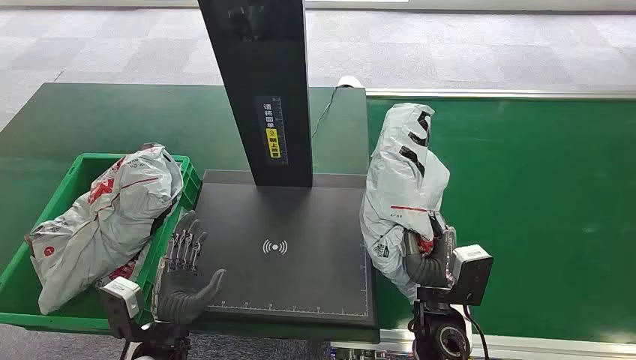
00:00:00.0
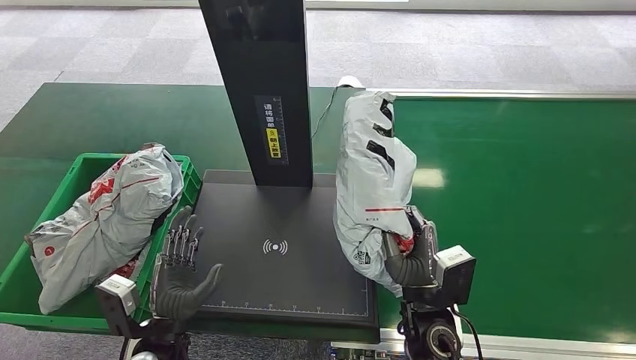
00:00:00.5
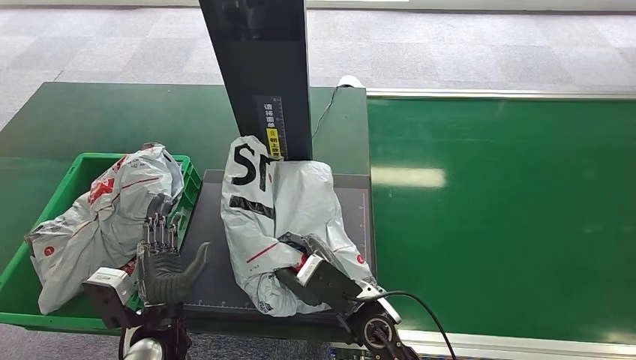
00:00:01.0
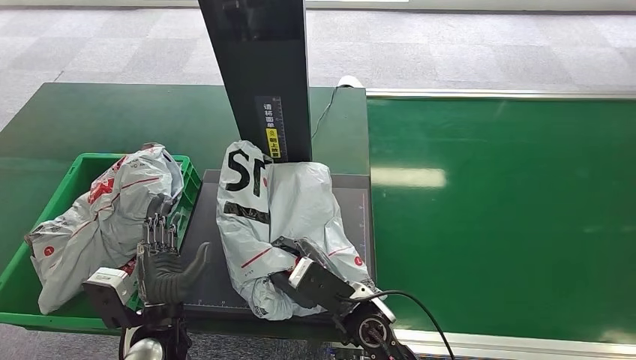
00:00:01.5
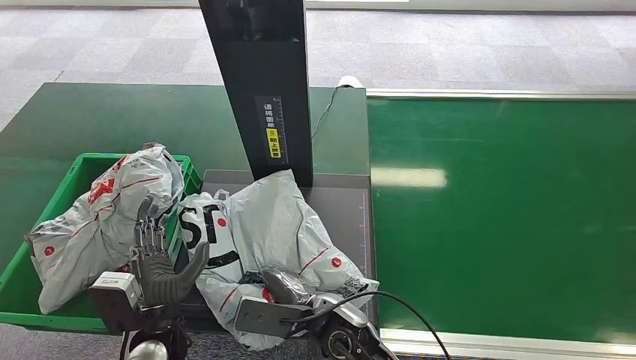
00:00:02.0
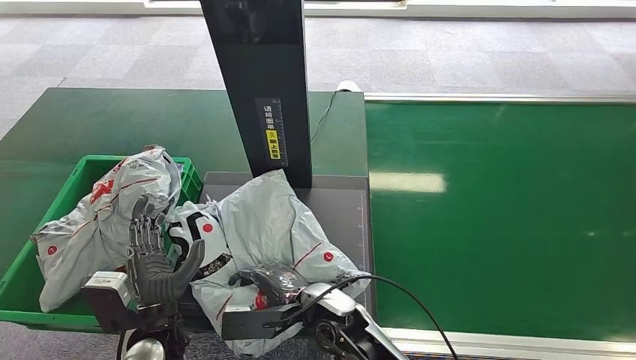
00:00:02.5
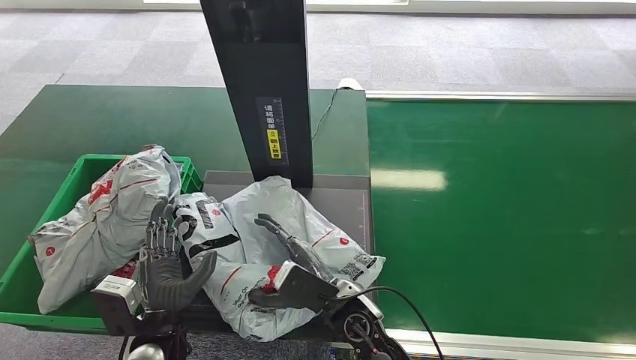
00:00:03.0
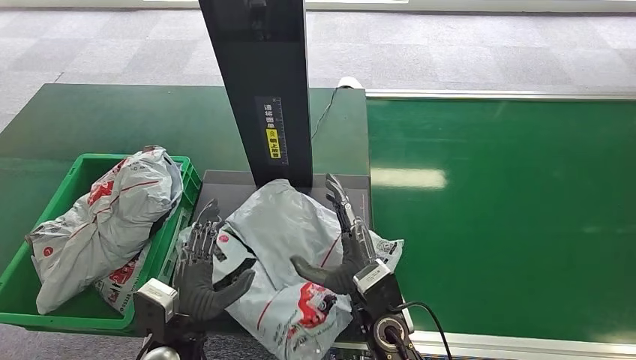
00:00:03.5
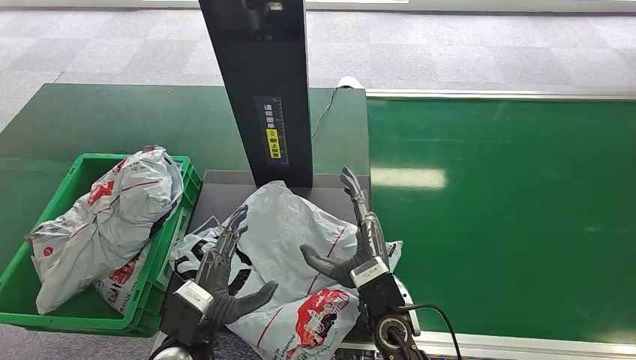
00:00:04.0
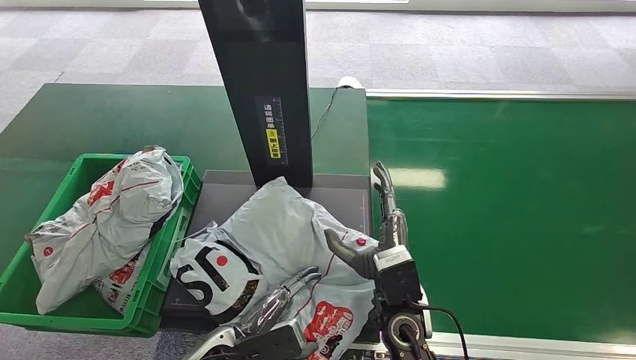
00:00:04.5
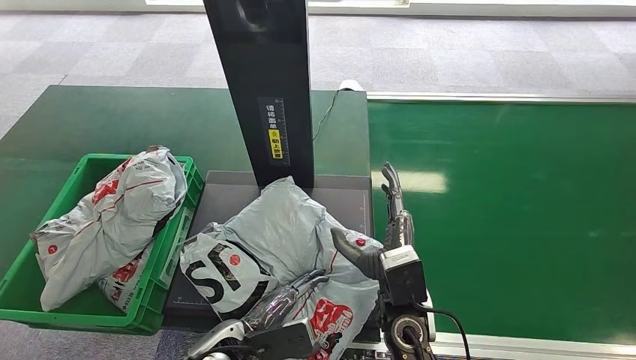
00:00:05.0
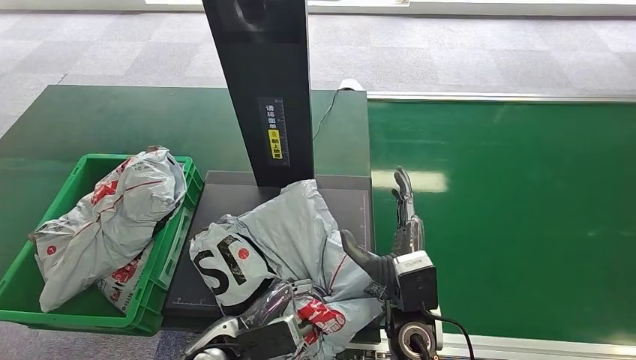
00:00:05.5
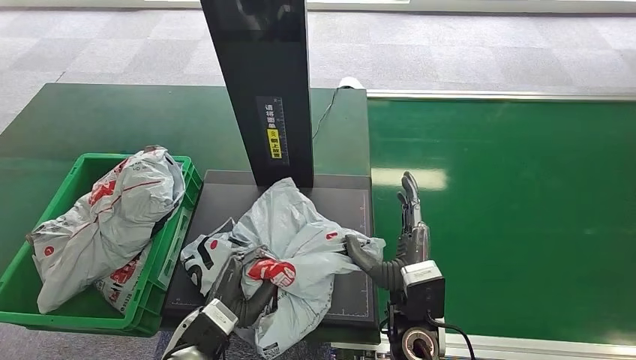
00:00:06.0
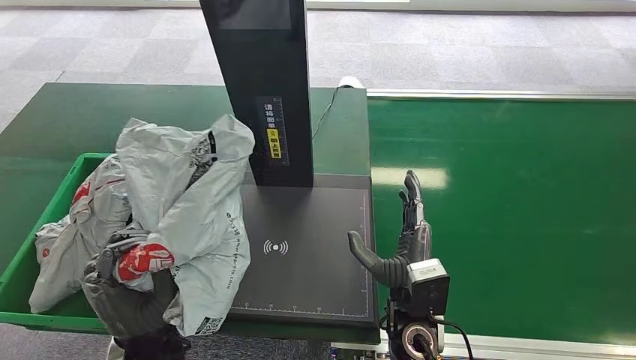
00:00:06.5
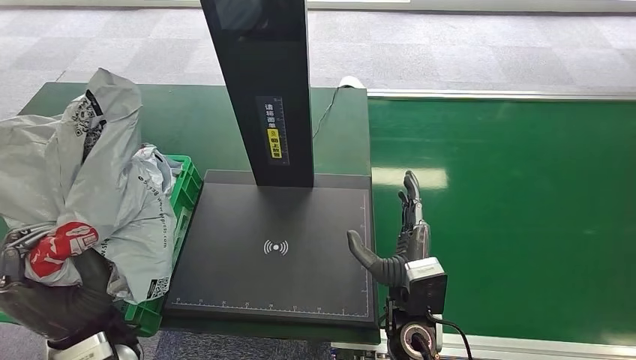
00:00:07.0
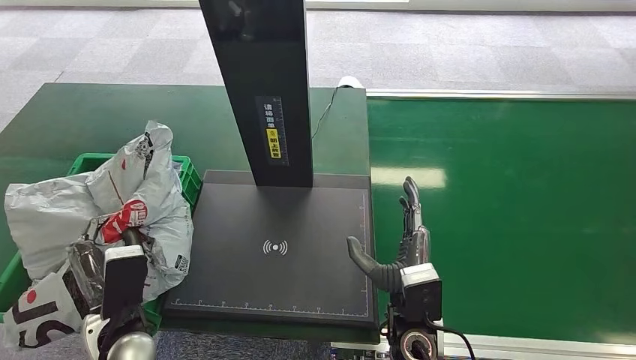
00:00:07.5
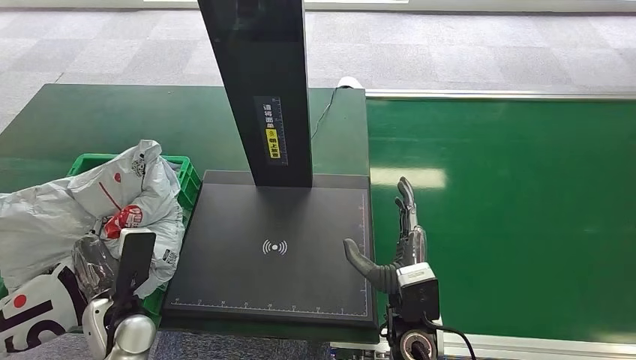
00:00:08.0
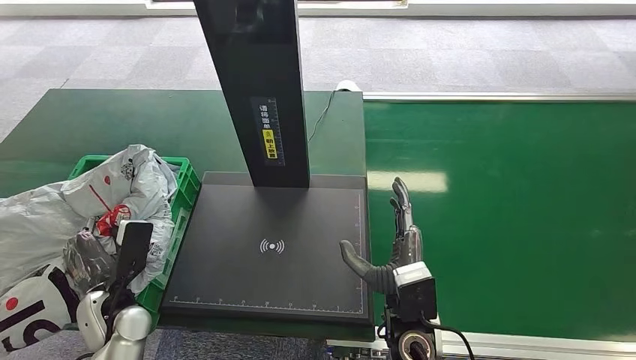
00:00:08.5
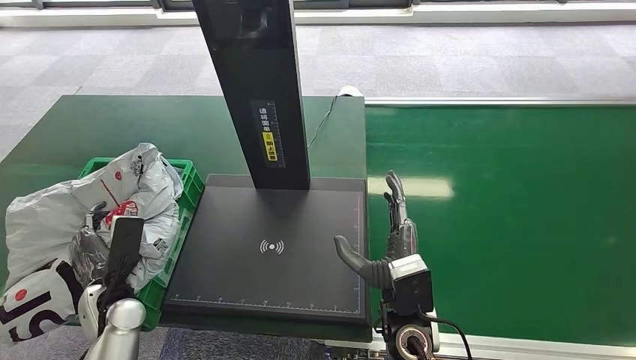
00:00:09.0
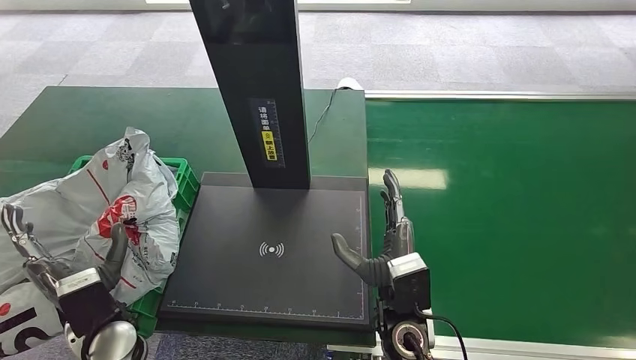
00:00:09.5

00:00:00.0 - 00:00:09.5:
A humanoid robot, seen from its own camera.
00:00:02.0 - 00:00:04.0: The right hand travels to the right by about 5 cm.

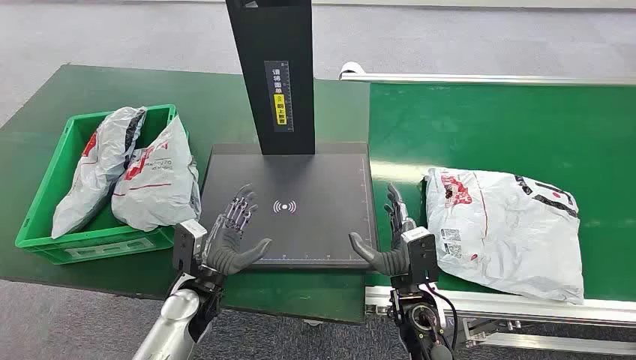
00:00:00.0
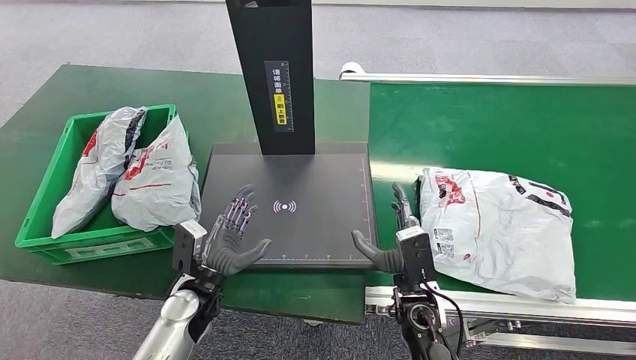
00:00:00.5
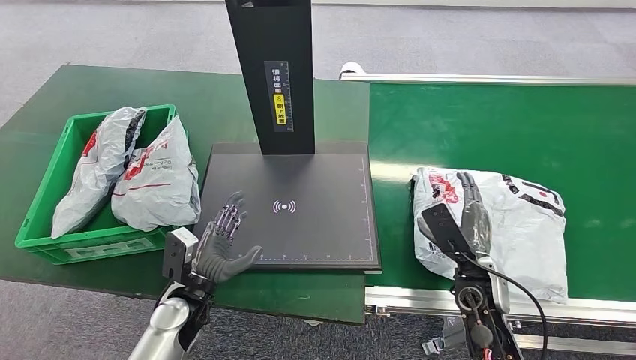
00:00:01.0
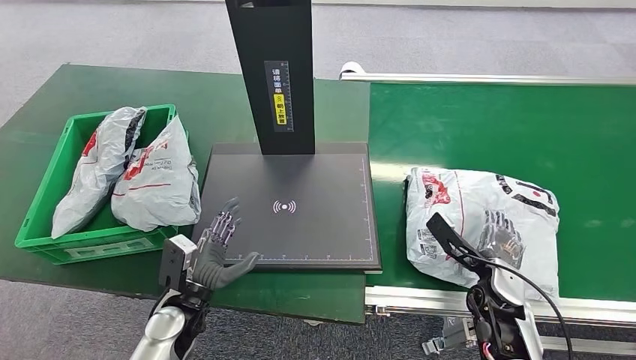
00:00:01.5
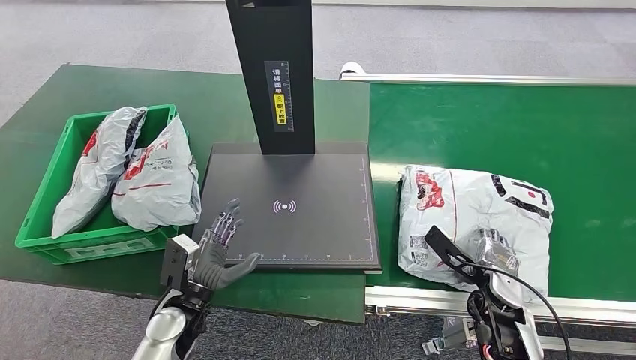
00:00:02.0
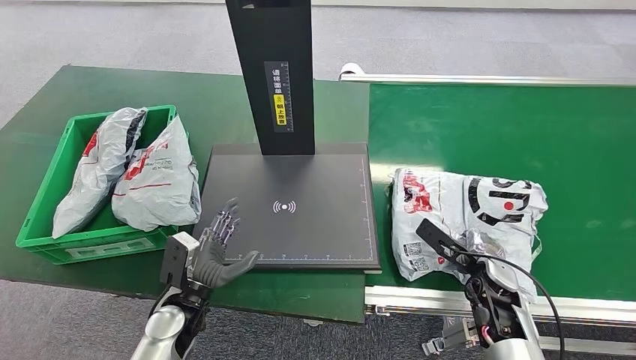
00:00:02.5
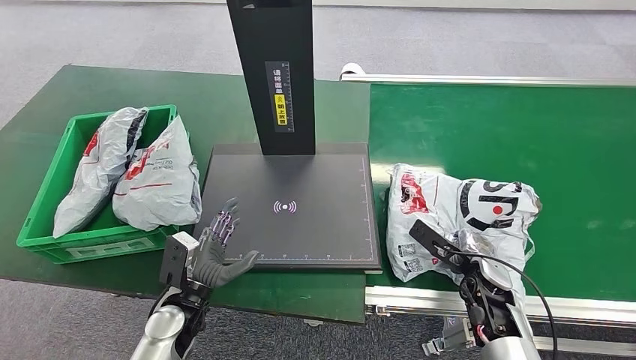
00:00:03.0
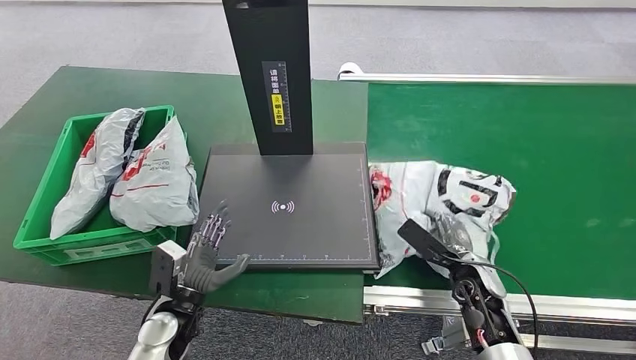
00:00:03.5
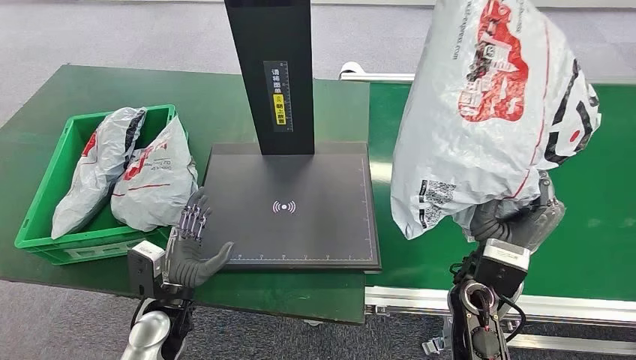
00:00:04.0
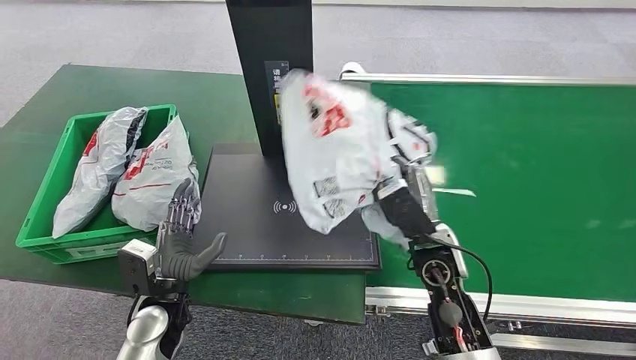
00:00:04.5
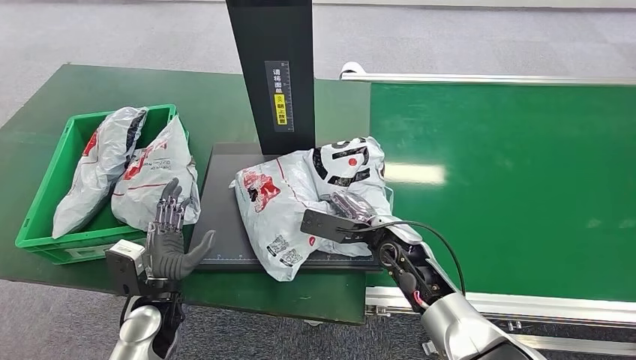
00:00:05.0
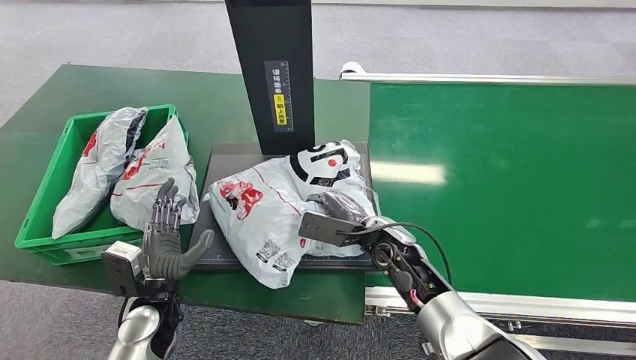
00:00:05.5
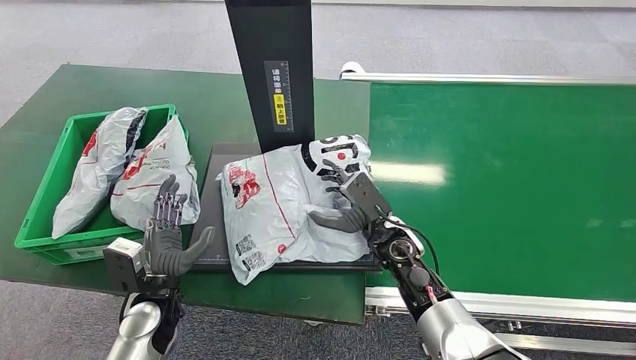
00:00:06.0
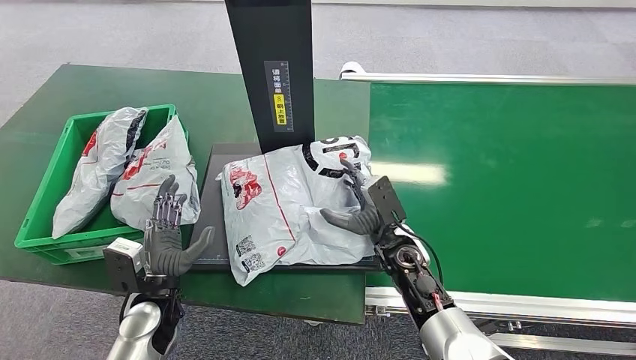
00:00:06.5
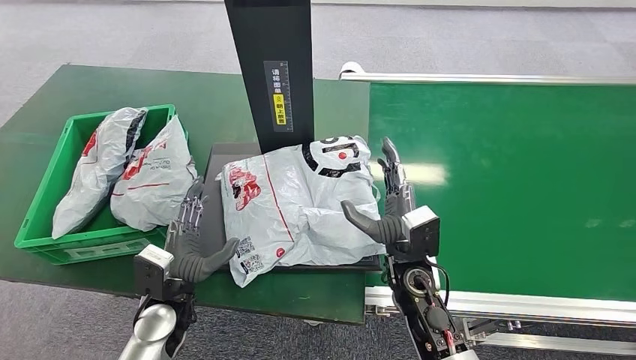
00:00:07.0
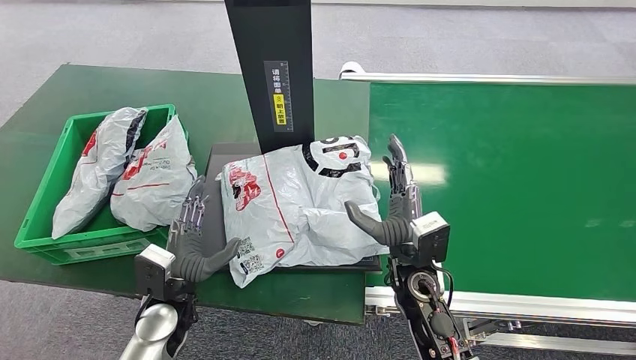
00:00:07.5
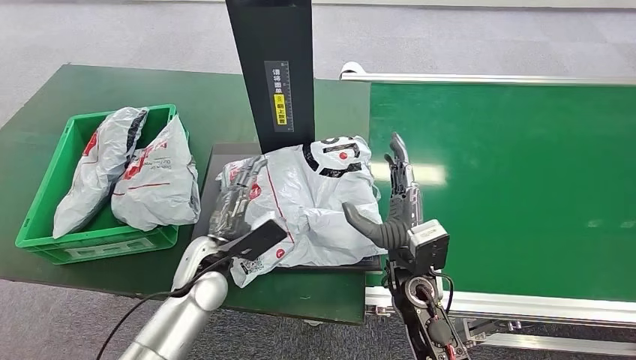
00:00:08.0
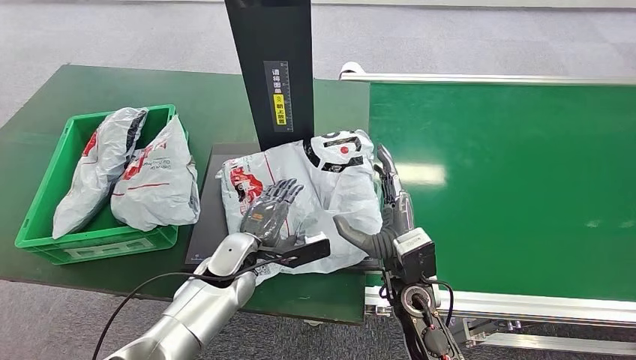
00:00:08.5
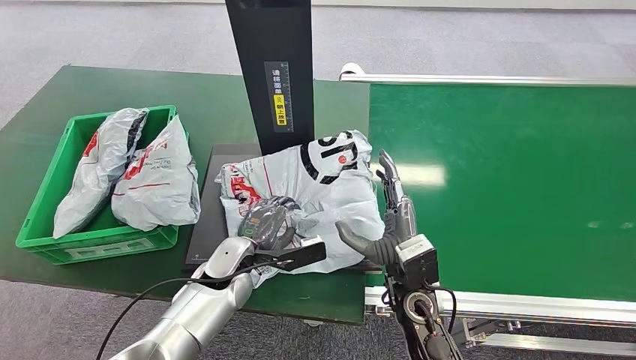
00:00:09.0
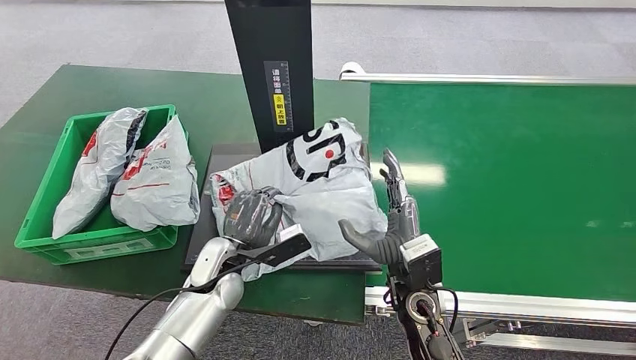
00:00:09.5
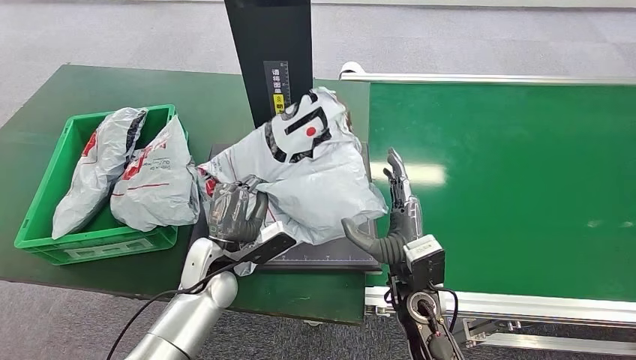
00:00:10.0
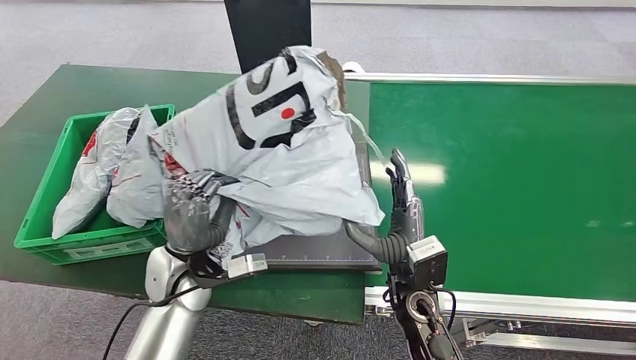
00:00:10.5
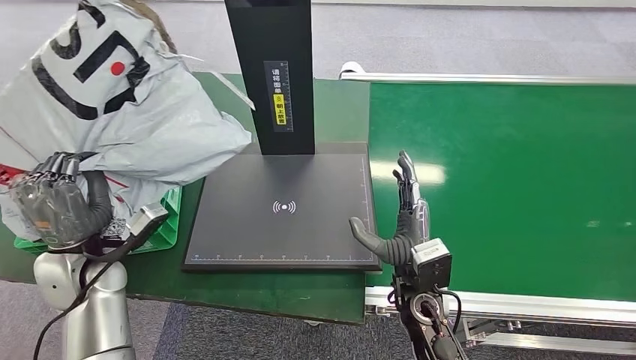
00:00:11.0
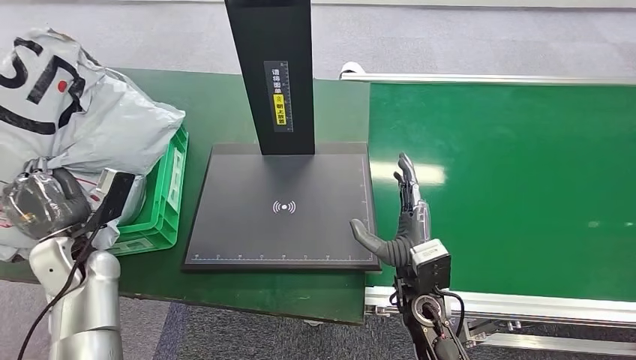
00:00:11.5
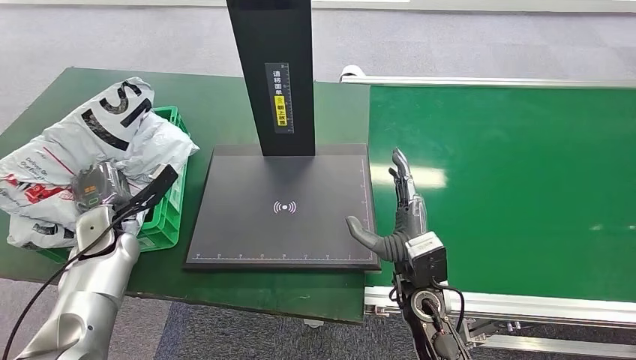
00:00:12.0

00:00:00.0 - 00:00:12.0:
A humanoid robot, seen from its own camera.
Step, 00:00:00.0 - 00:00:03.5: Pick up the package from the conveyor belt.
Step, 00:00:04.0 - 00:00:07.0: Place the package onto the inbound machine.
Step, 00:00:07.5 - 00:00:10.5: Pick up the package from the inbound machine.
00:00:06.0 - 00:00:08.0: The right hand is displaced backward by roughly 5 cm. Meanwhile the left hand moves to the right and forward, some 10 cm.
